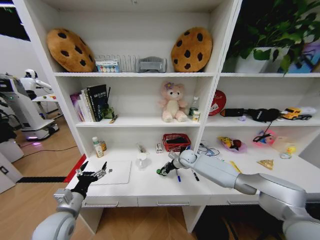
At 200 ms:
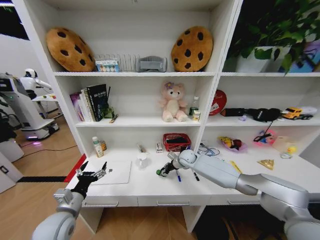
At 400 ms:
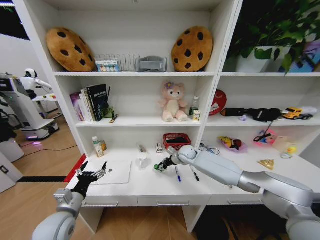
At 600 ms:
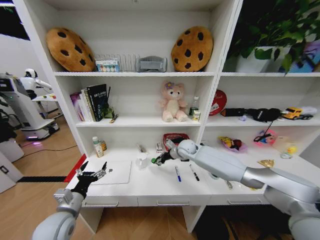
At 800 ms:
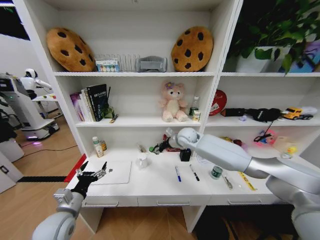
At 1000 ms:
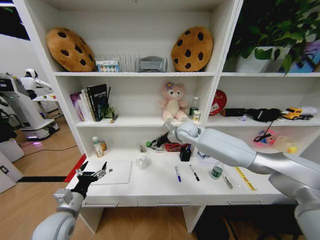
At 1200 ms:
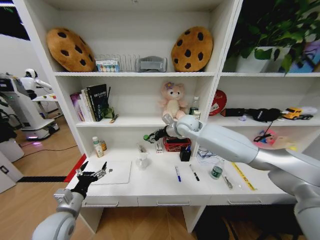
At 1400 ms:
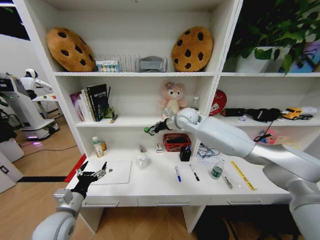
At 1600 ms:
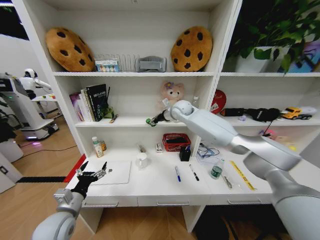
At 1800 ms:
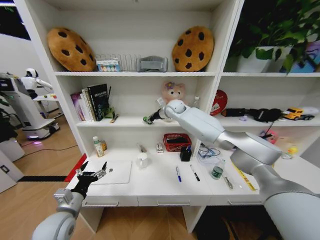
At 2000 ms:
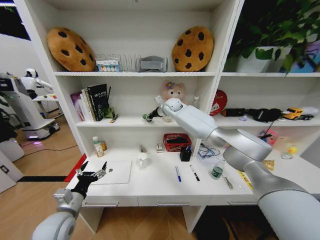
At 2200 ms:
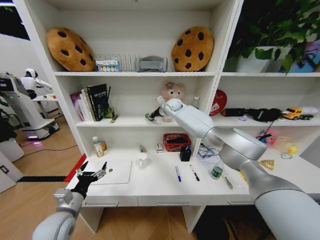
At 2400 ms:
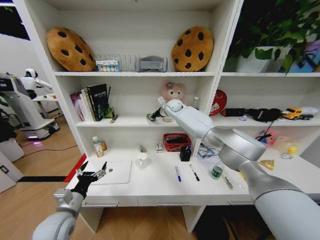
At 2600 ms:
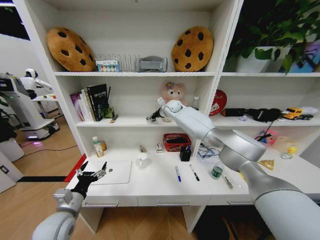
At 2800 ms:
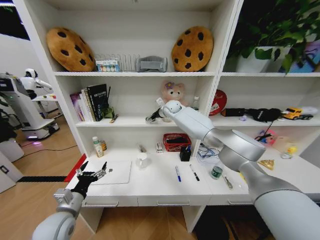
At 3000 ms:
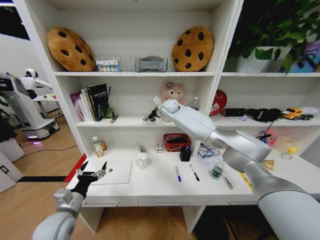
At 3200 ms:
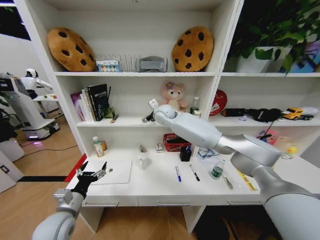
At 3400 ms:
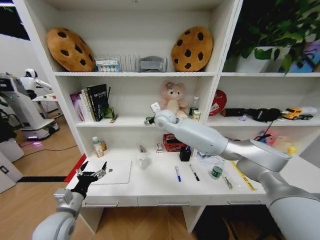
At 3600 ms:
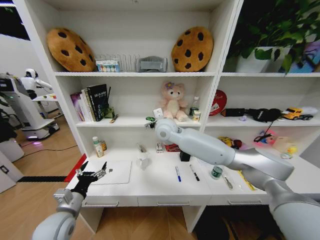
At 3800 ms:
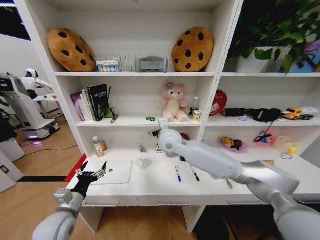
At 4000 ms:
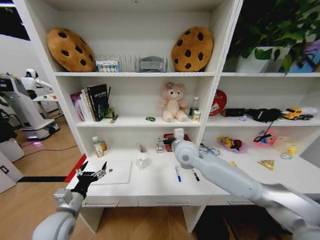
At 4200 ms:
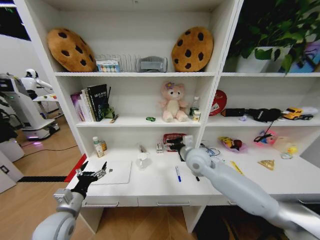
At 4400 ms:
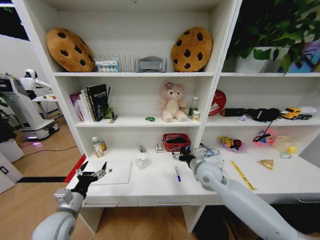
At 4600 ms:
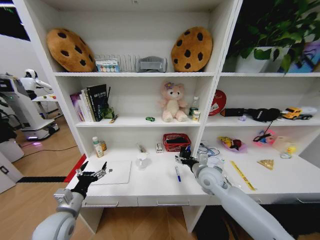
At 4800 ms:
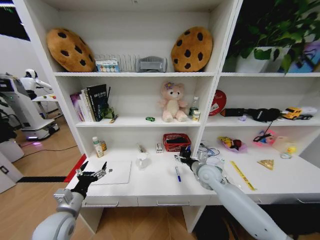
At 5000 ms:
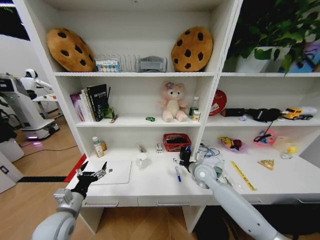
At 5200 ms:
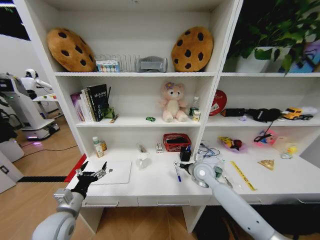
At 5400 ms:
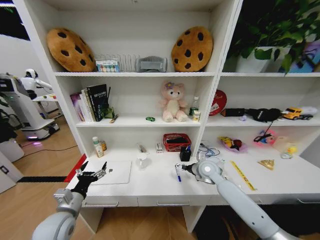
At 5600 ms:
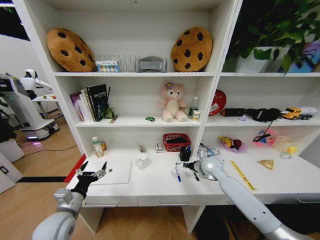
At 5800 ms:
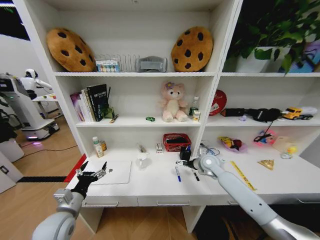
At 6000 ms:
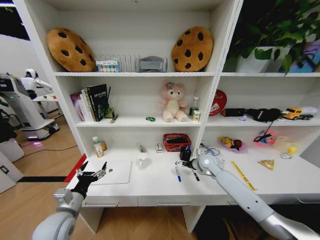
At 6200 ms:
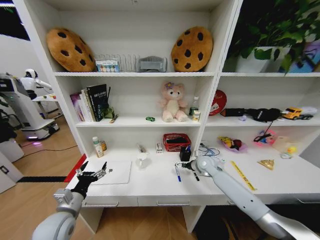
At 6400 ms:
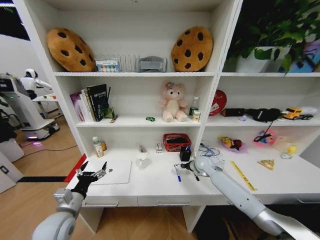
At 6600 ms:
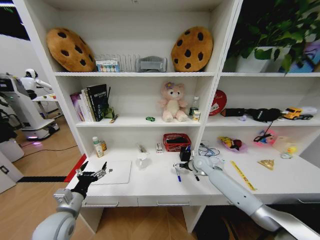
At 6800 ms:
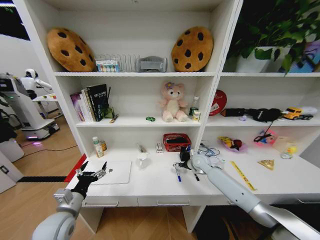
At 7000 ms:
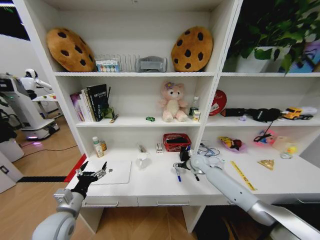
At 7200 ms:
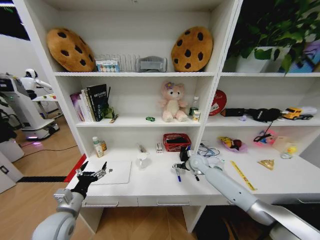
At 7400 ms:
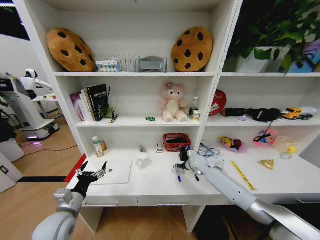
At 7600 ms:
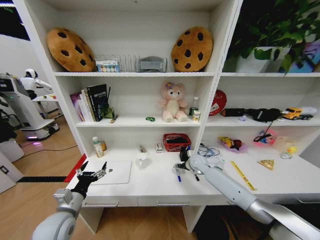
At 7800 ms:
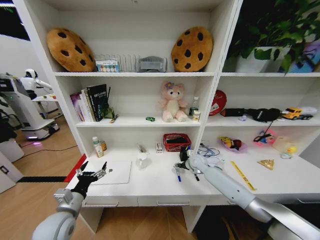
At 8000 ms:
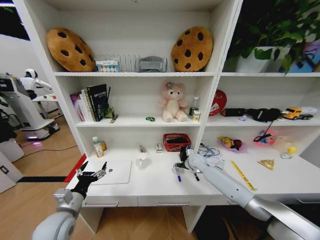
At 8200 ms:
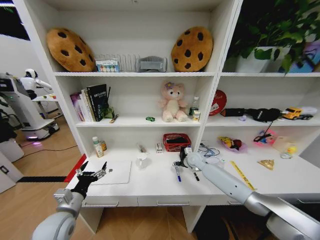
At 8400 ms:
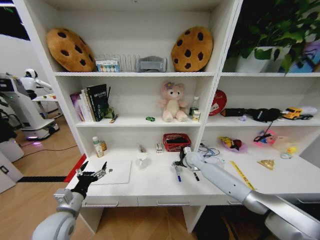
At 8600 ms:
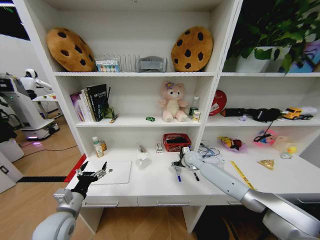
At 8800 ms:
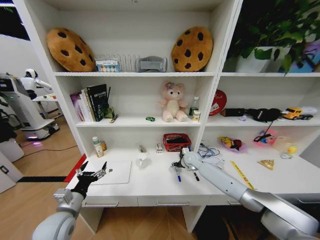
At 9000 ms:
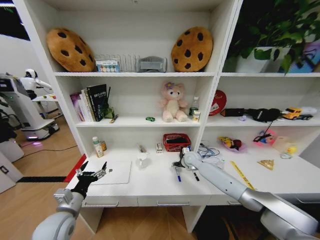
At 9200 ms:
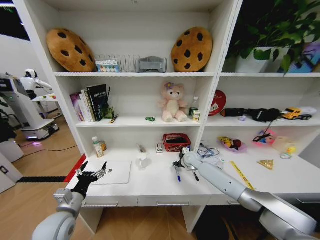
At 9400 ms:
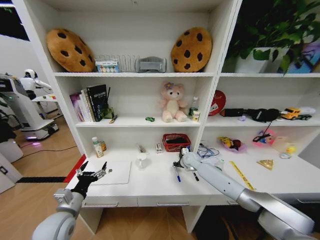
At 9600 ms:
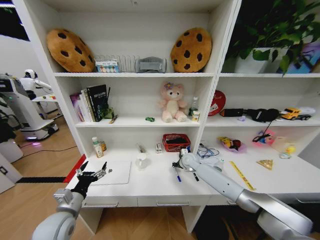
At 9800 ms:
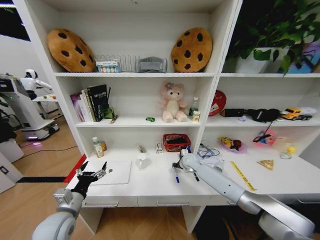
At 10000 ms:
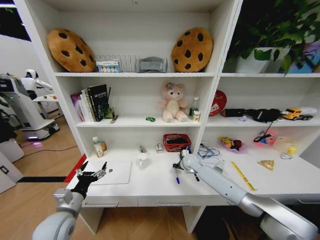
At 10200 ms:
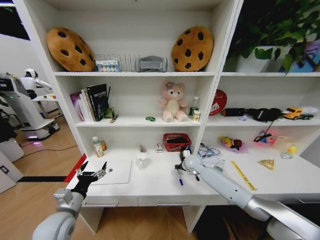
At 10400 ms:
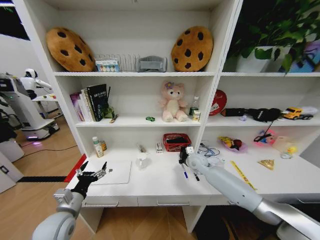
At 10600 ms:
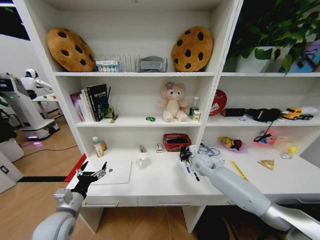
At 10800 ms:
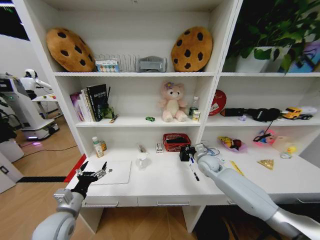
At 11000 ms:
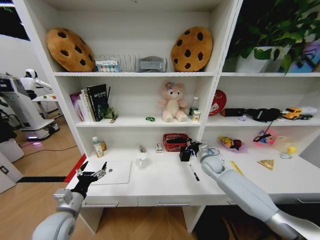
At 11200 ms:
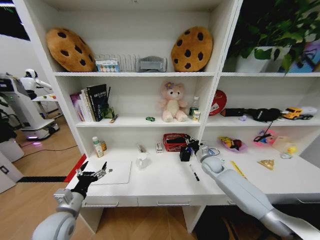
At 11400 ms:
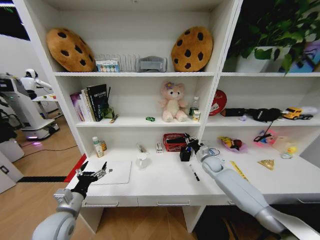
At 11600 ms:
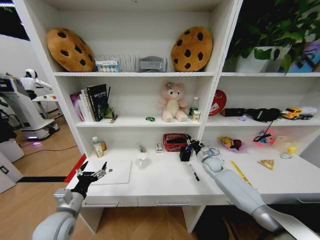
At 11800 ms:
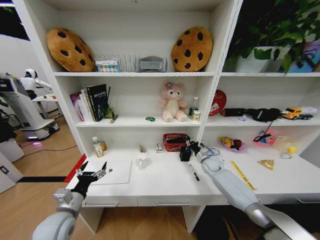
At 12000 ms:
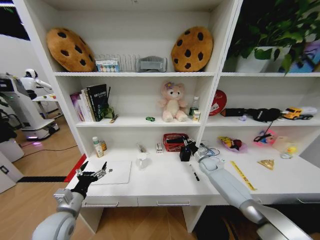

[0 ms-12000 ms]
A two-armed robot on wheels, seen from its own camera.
Task of the whole recording: Organize the objects on the table.
0 ms to 1600 ms: The right gripper moves upward, approximately 25 cm.
1600 ms to 3000 ms: The right gripper heads forward and to the left, covering about 10 cm, and opens its fingers.
3000 ms to 4400 ms: The right gripper moves backward, downward and to the right, roughly 35 cm.
4400 ms to 6000 ms: The right gripper shifts roughly 15 cm forward, downward and to the right.
6000 ms to 7600 ms: The right gripper shifts by approximately 5 cm, and closes its fingers.
7600 ms to 9000 ms: The grippers make only small movements.
9000 ms to 10400 ms: The right gripper closes.
10400 ms to 12000 ms: The right gripper travels to the right and downward by some 15 cm.

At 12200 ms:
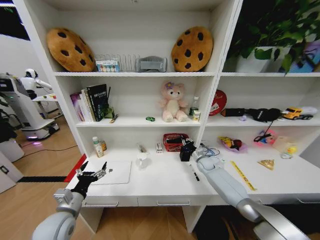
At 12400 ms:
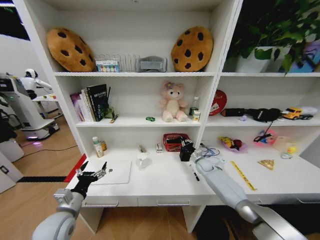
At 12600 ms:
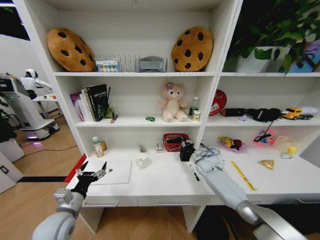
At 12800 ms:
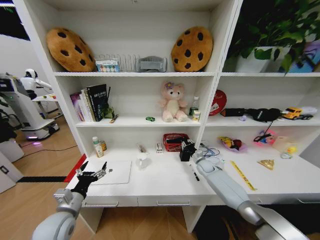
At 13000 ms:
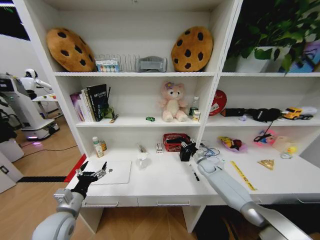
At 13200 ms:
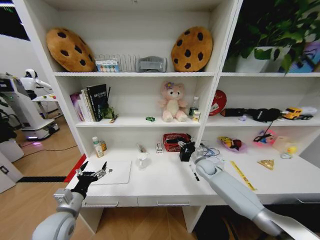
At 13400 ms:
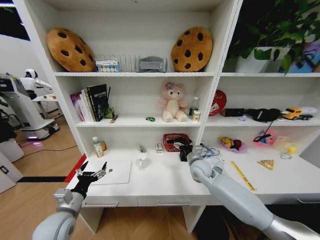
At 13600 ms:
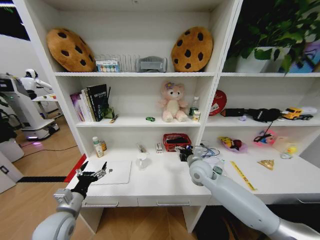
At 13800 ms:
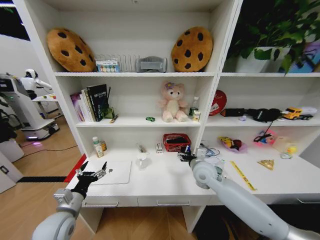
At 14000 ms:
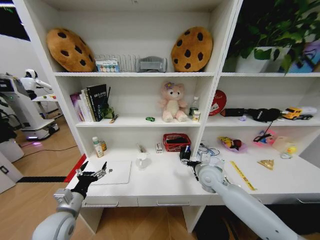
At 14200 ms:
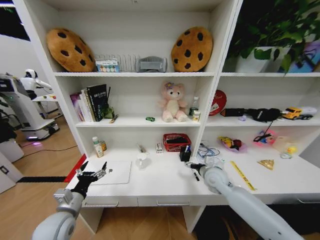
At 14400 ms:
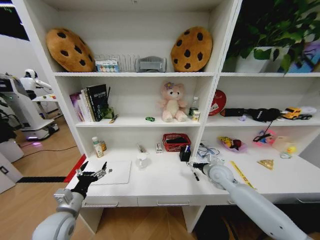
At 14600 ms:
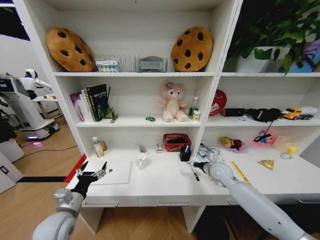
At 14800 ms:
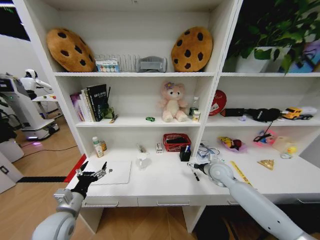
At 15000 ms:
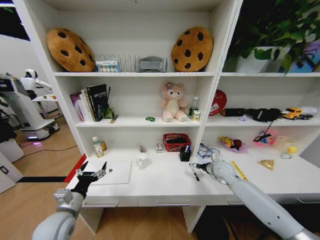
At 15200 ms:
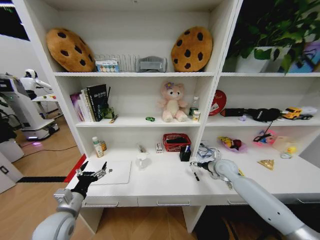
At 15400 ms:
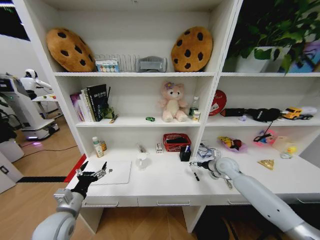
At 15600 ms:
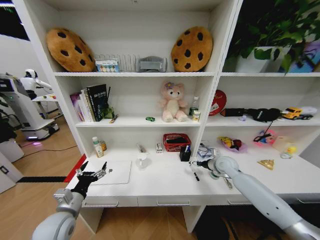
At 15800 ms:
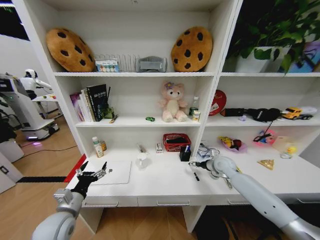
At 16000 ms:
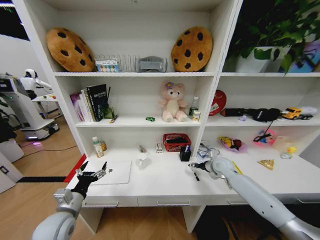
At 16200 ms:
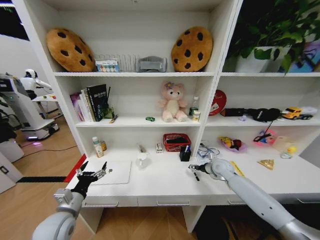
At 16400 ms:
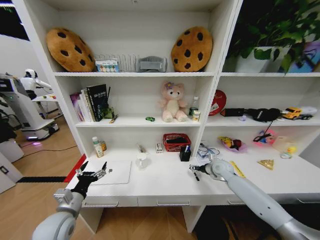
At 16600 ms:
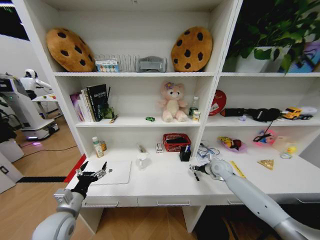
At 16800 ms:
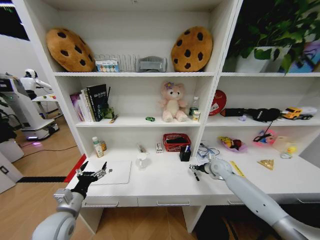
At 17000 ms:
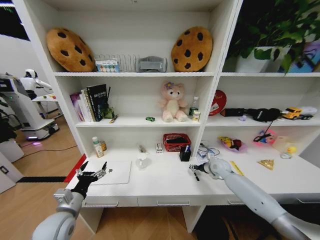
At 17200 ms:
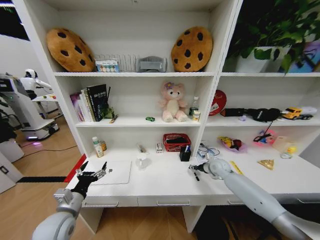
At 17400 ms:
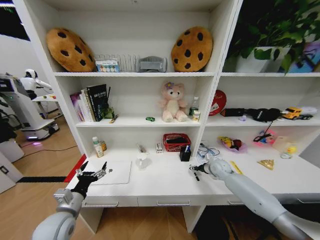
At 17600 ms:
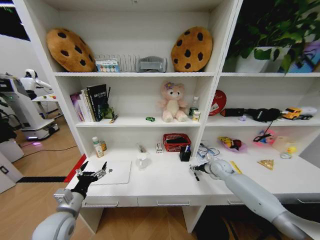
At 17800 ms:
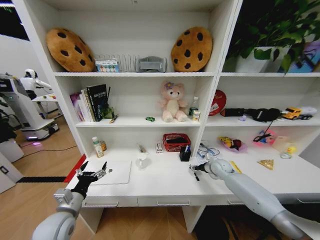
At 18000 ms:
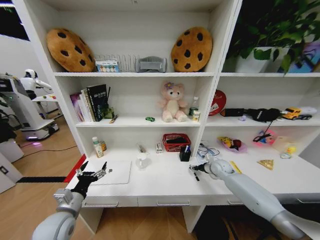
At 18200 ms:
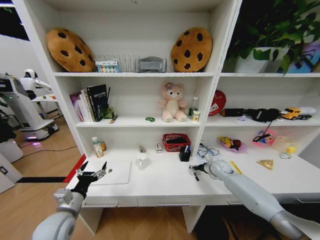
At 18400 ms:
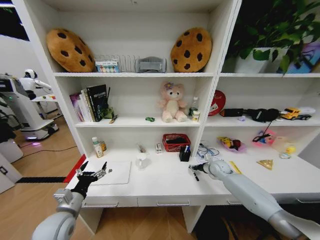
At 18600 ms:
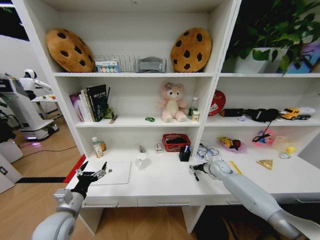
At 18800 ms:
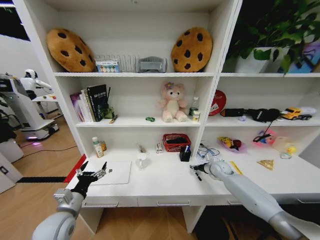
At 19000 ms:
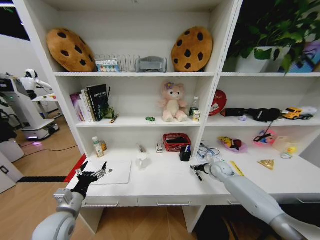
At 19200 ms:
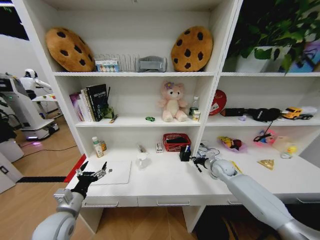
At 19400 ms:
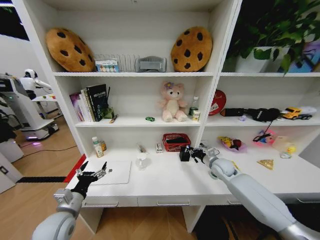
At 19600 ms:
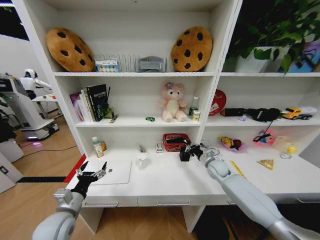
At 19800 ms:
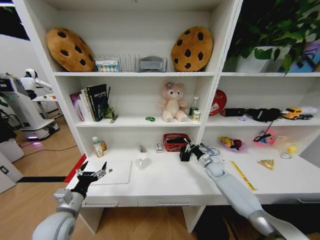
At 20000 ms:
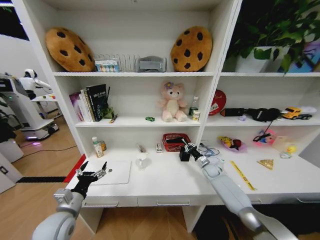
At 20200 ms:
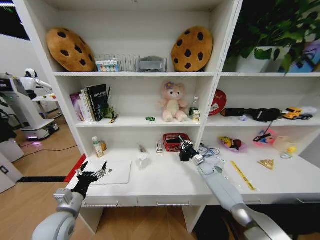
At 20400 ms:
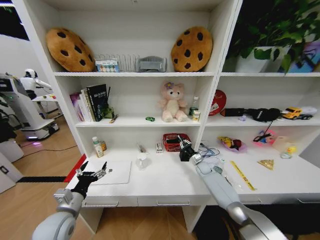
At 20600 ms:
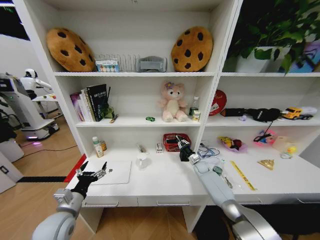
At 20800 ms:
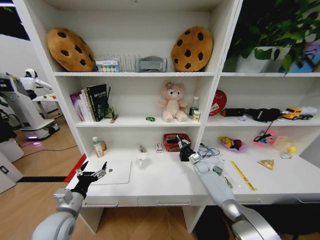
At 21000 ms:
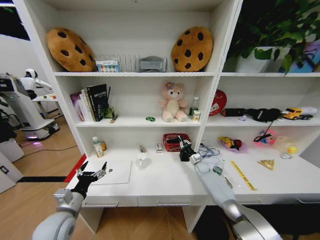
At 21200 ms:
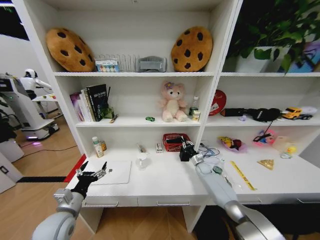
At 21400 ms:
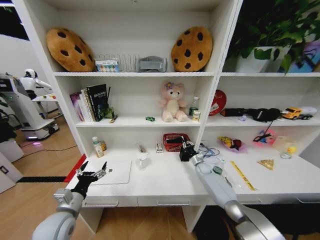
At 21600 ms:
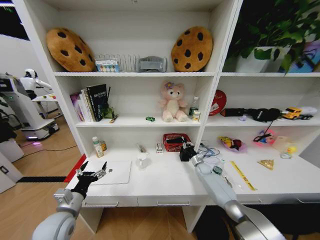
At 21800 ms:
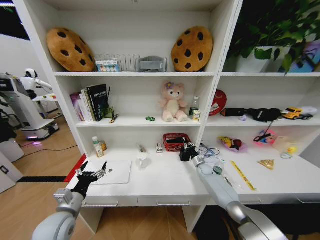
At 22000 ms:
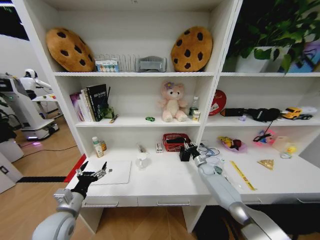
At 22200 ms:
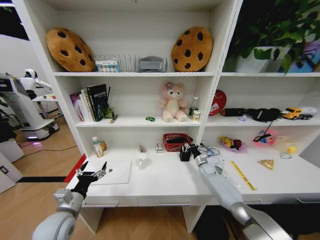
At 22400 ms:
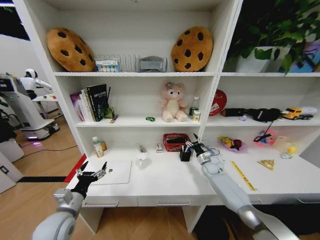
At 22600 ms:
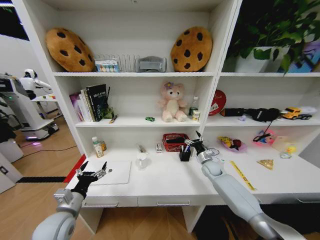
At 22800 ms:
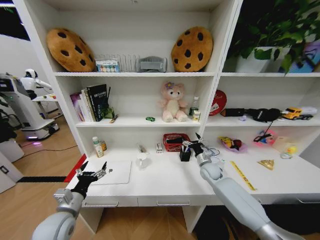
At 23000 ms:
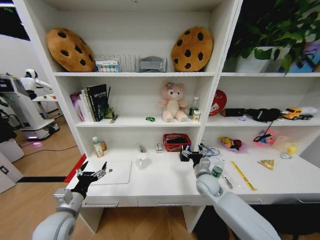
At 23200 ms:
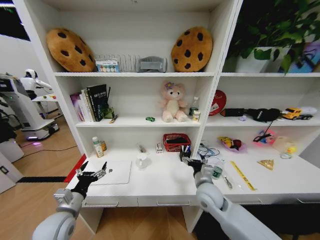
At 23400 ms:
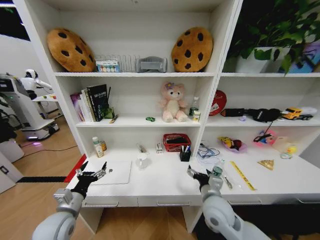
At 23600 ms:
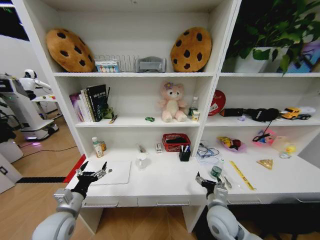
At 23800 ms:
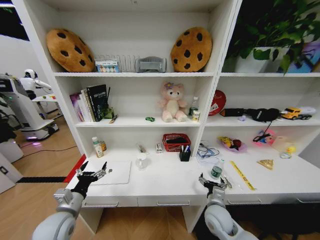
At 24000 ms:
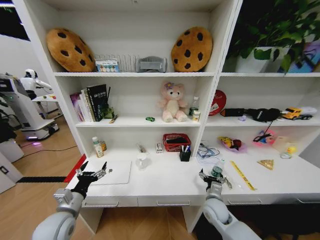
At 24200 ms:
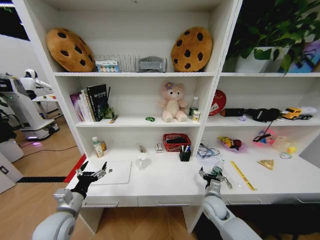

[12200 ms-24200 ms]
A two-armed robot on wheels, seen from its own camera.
Task of the whole recording: Organize the objects on the table.
12200 ms to 13800 ms: The right gripper is displaced backward, upward and to the left by approximately 25 cm, and opens.
13800 ms to 15200 ms: The right gripper shifts roughly 15 cm to the right.
15200 ms to 16600 ms: The right gripper closes its fingers.
16600 ms to 18200 ms: The grippers make only small movements.
19800 ms to 21200 ms: The right gripper heads downward, covering some 5 cm.
21200 ms to 22600 ms: The right gripper goes about 5 cm upward, and opens.
22600 ms to 24200 ms: The right gripper travels backward by about 20 cm.
